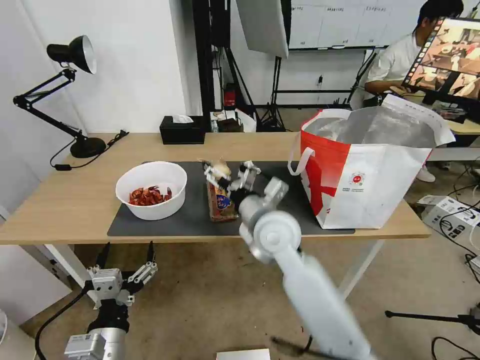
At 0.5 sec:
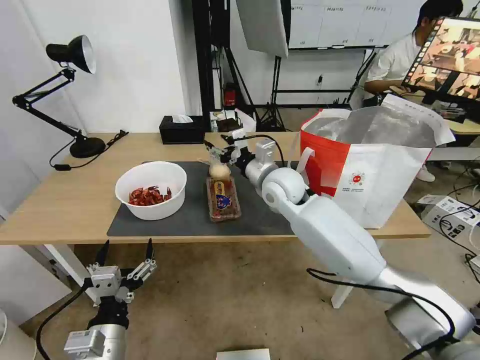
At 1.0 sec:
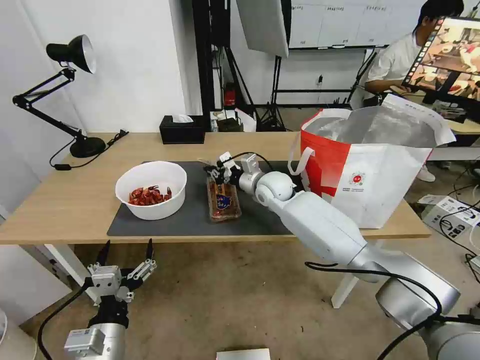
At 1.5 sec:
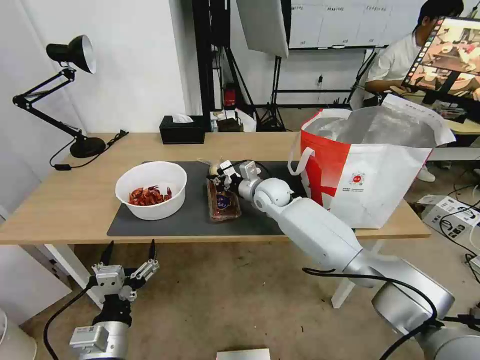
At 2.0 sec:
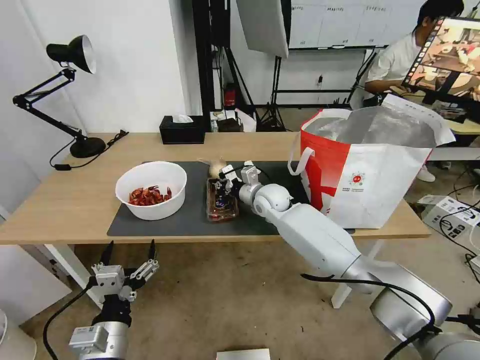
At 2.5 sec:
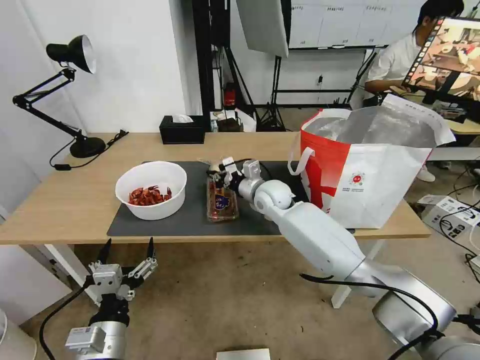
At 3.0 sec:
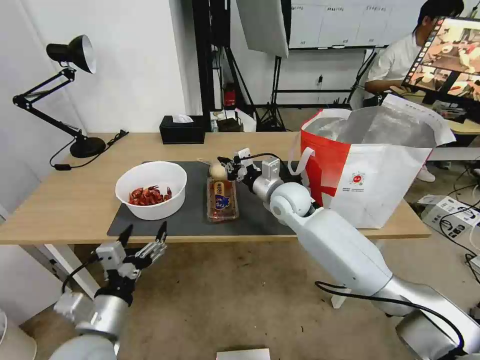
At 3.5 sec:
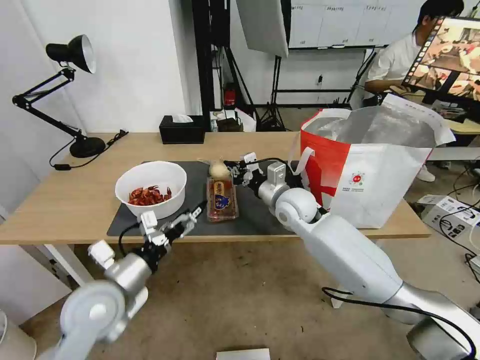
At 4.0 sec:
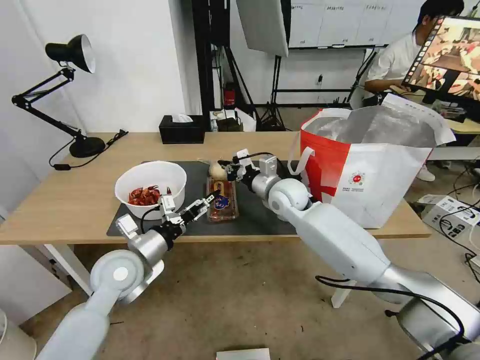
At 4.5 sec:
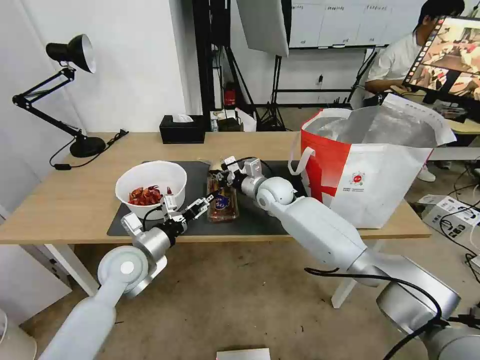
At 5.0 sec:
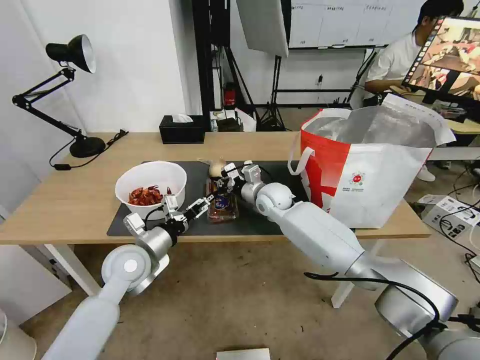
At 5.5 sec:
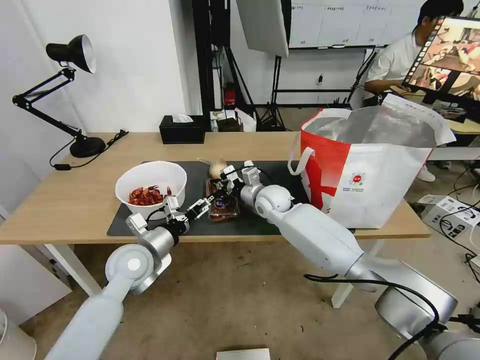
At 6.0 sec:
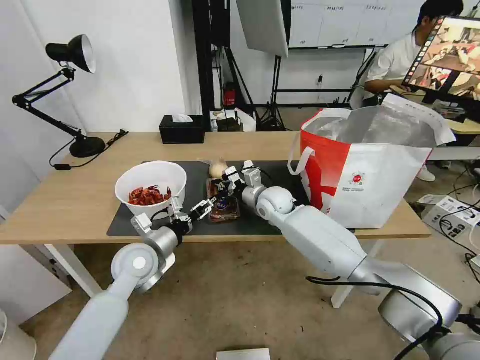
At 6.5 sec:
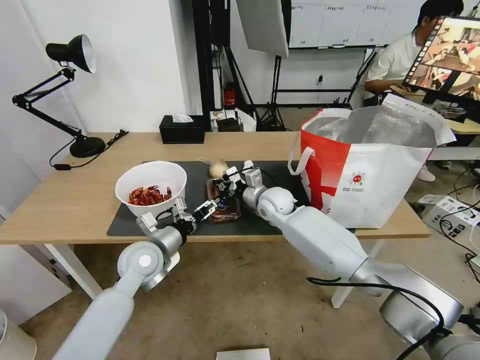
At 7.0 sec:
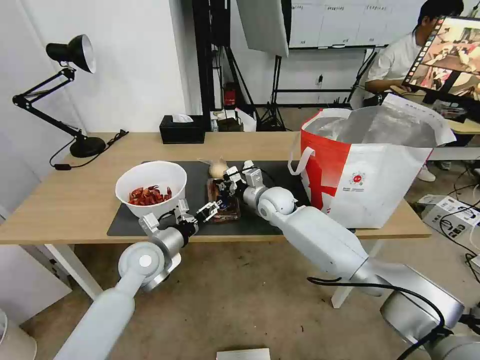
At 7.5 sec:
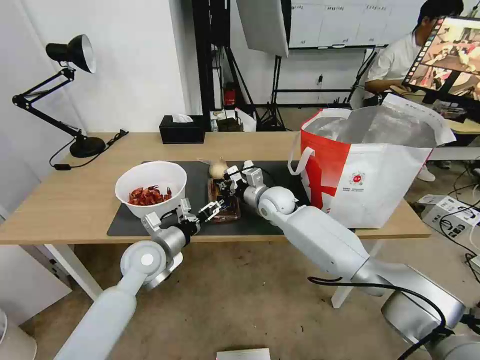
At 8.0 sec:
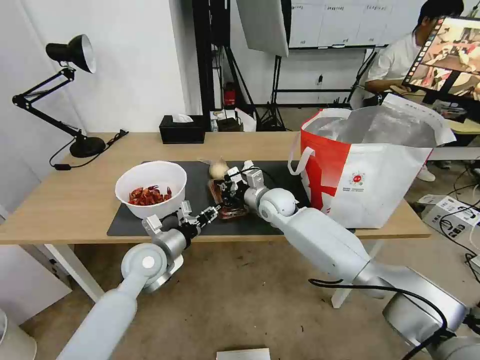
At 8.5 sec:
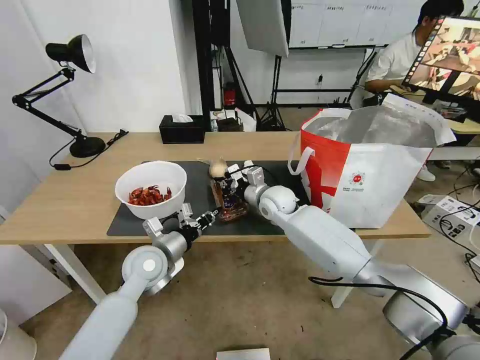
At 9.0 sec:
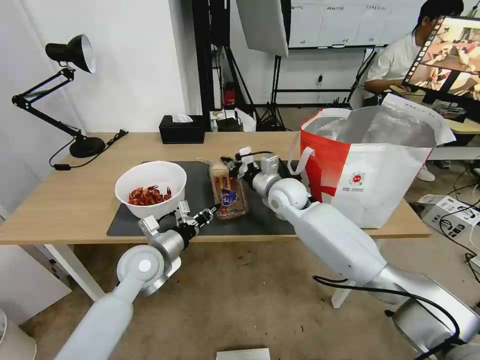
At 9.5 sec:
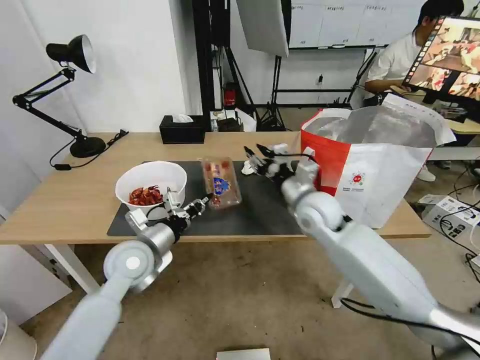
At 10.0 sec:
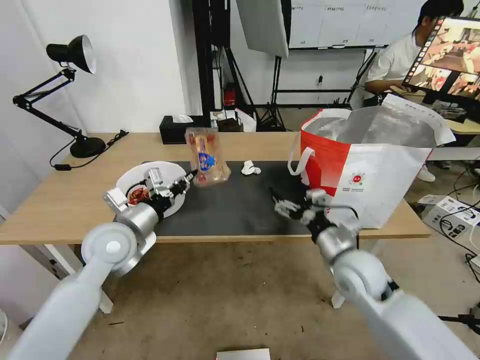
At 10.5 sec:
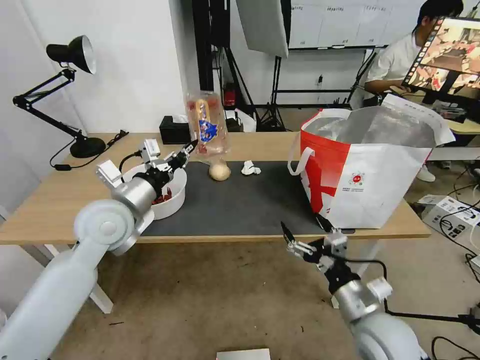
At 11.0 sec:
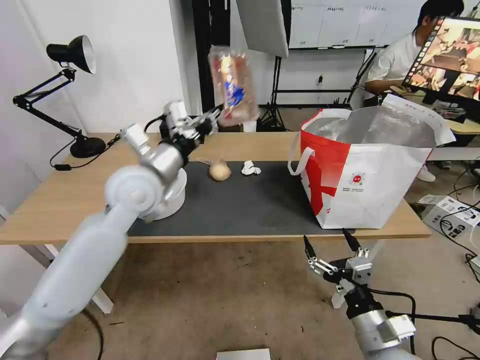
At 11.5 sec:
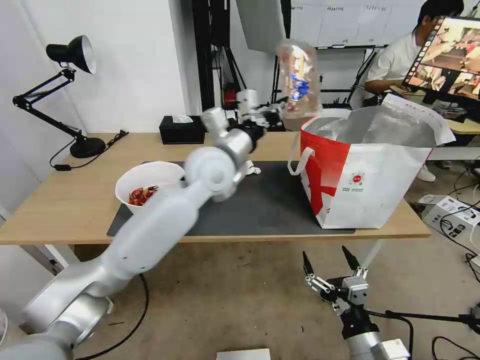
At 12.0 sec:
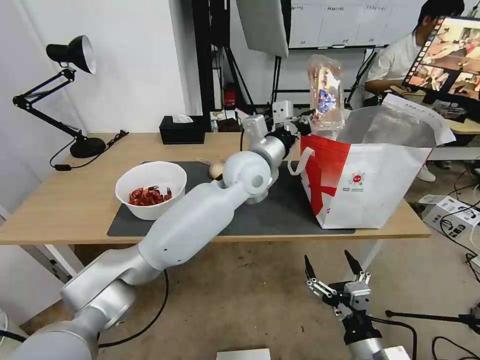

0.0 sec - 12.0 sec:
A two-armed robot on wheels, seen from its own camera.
Task of the whole recording: Pick up the trash from the table and place it into the takeout bag.
0.0 sec - 2.0 sec: The right gripper travels forward and downward by some 20 cm, and closes.
2.0 sec - 4.0 sec: The left gripper goes approximately 20 cm forward; the right gripper moves upward, approximately 5 cm.
4.0 sec - 6.0 sec: The right gripper shifts some 5 cm downward.
6.0 sec - 8.0 sec: The left gripper closes.
8.0 sec - 10.0 sec: The right gripper shifts roughly 25 cm backward and to the right, and opens its fingers. The left gripper goes about 10 cm upward.
10.0 sec - 12.0 sec: The right gripper goes about 20 cm backward. The left gripper moves to the right and forward, approximately 30 cm.

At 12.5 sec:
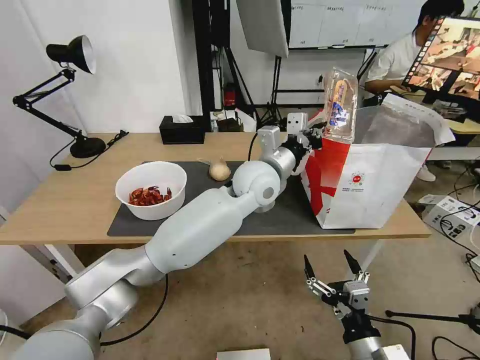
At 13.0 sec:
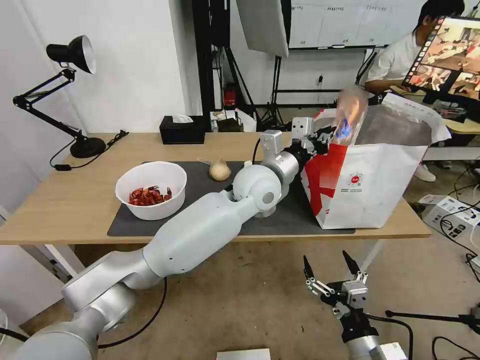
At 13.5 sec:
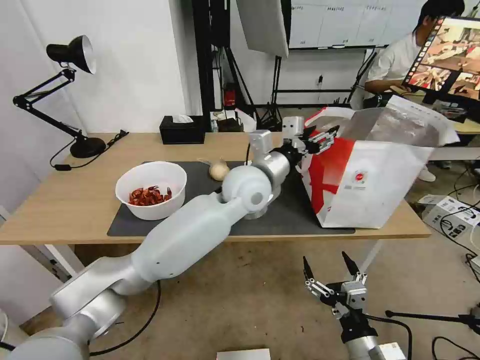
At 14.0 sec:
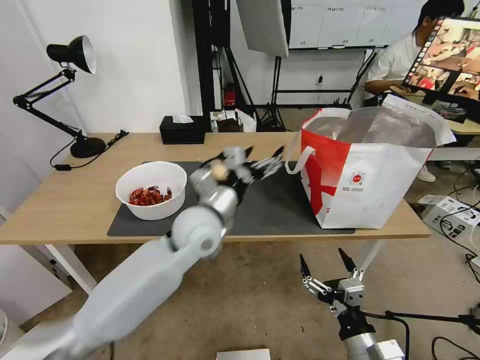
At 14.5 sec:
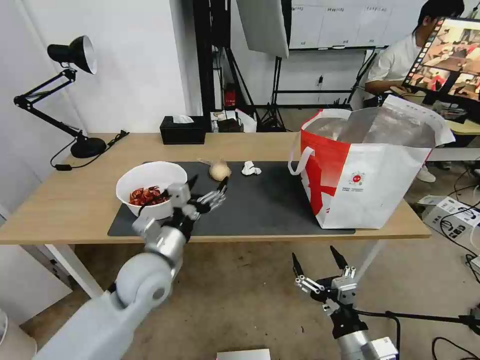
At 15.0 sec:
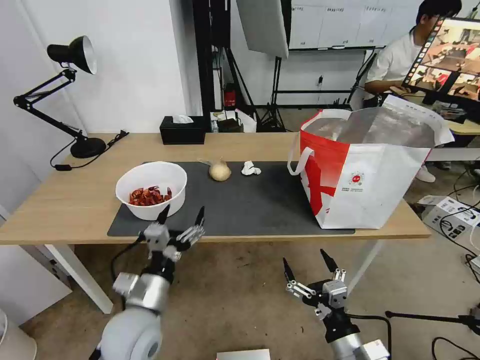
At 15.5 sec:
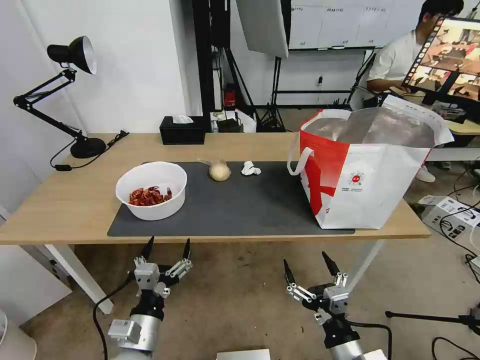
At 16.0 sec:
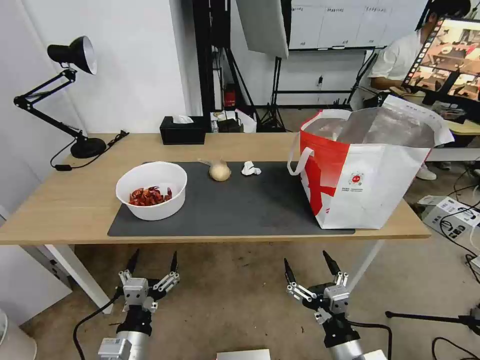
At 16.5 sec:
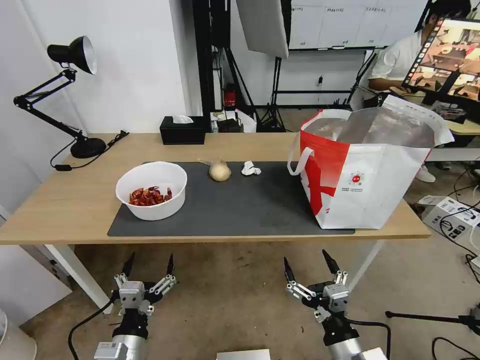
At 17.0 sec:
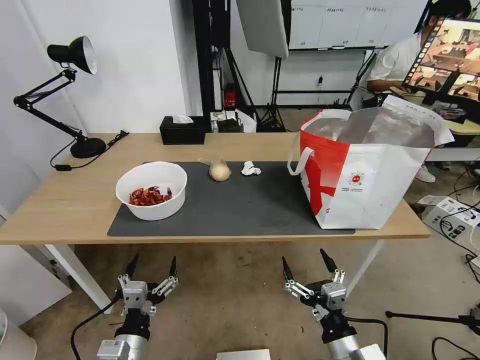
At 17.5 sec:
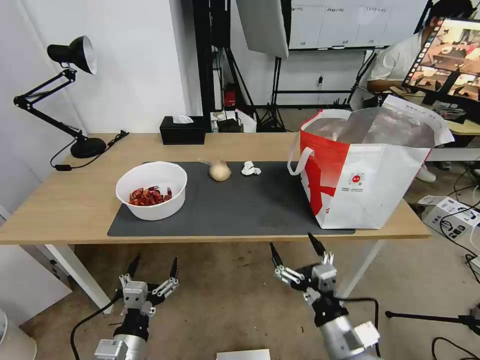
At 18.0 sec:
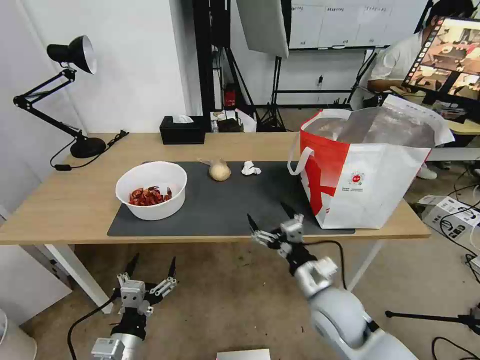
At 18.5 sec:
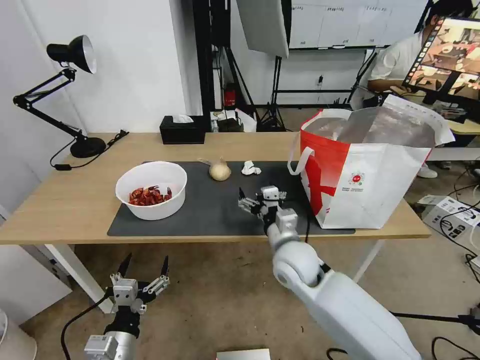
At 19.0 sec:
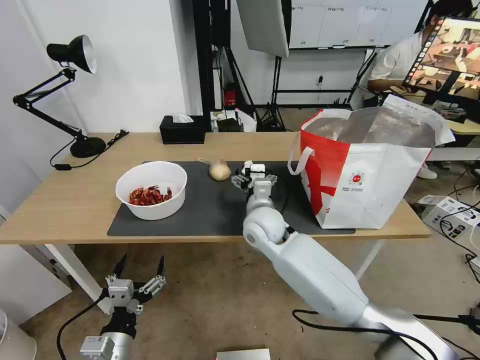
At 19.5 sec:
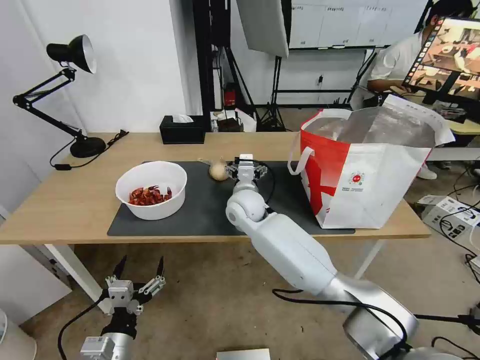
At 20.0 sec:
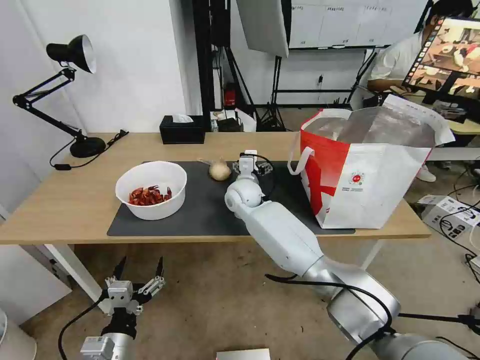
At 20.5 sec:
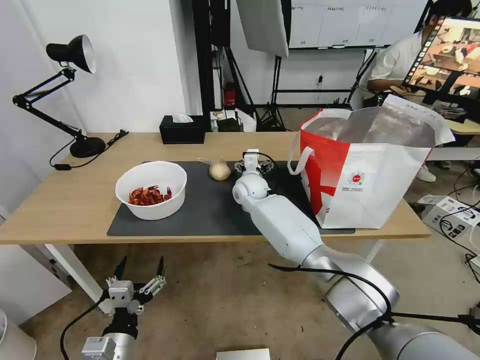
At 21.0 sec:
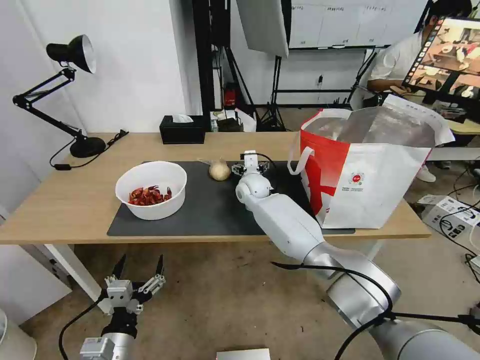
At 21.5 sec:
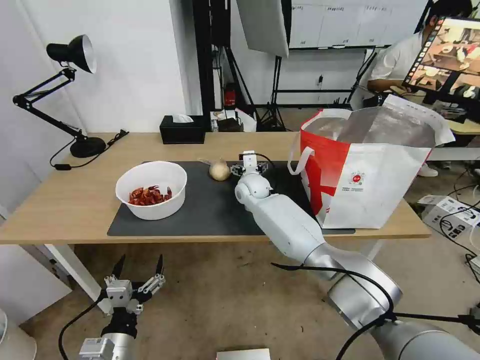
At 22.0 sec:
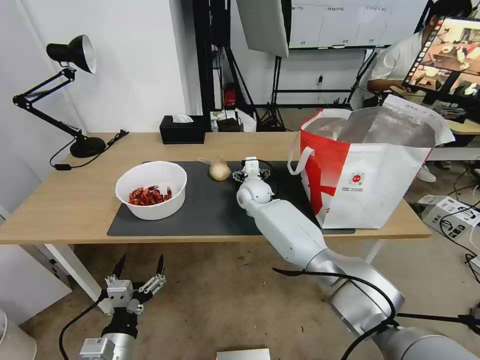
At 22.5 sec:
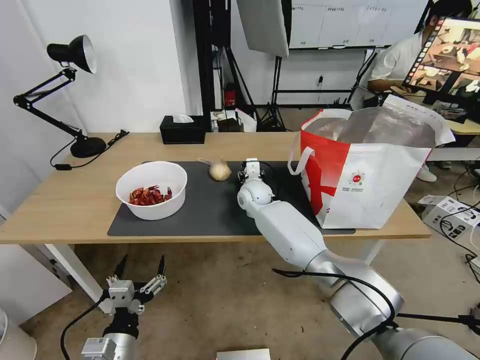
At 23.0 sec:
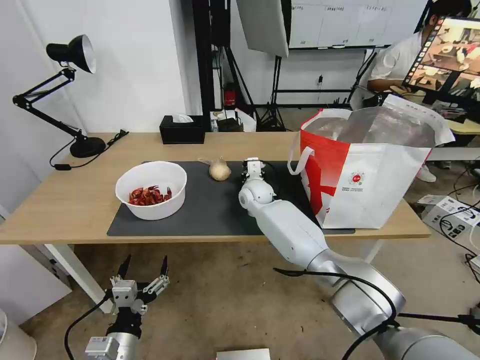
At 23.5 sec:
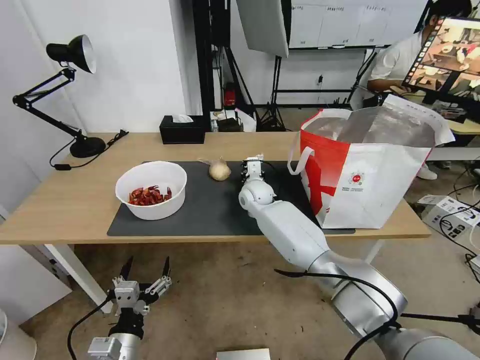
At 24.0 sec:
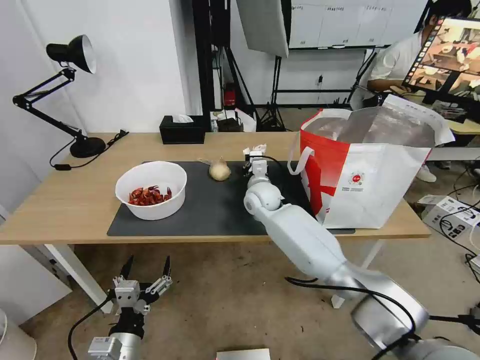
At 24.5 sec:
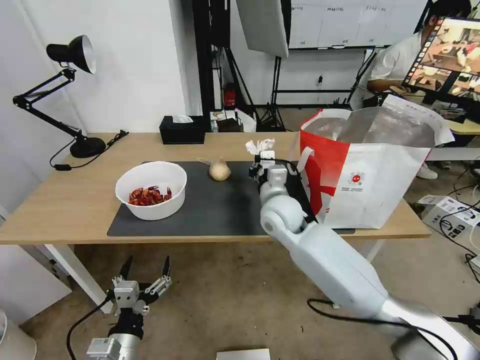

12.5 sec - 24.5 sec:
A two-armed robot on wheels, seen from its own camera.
Task of the whole recording: Pick up the trash from the table and place it into the takeout bag.
12.5 sec - 14.5 sec: The left gripper heads to the left, backward and downward, covering about 30 cm, and opens up.
14.5 sec - 16.5 sec: The left gripper moves backward and downward, about 20 cm.
16.5 sec - 18.5 sec: The right gripper travels forward and to the left by approximately 25 cm.
18.5 sec - 20.5 sec: The right gripper shifts some 25 cm forward.
20.5 sec - 22.5 sec: The right gripper closes its fingers.
22.5 sec - 24.5 sec: The right gripper heads backward and upward, covering approximately 15 cm, and closes its fingers.

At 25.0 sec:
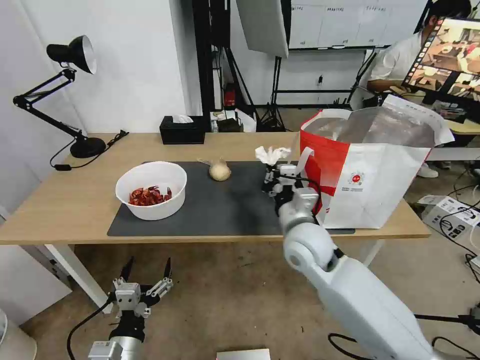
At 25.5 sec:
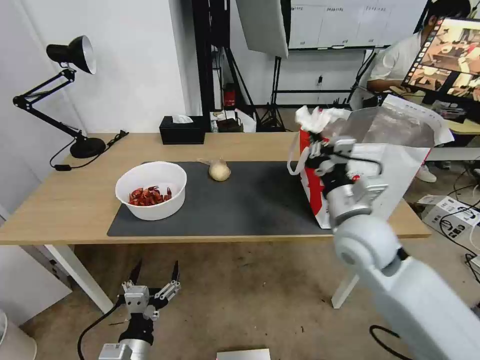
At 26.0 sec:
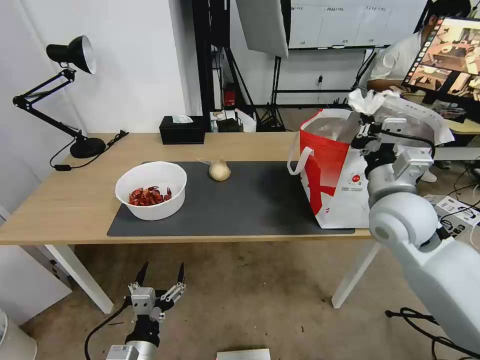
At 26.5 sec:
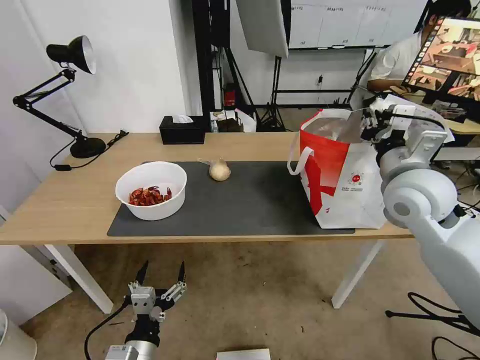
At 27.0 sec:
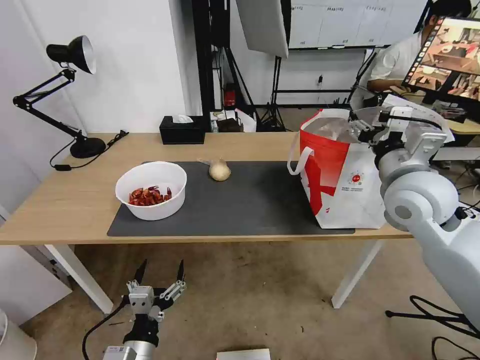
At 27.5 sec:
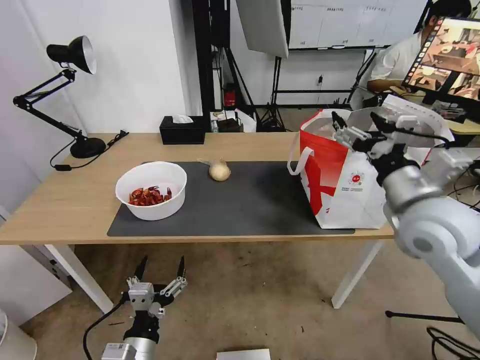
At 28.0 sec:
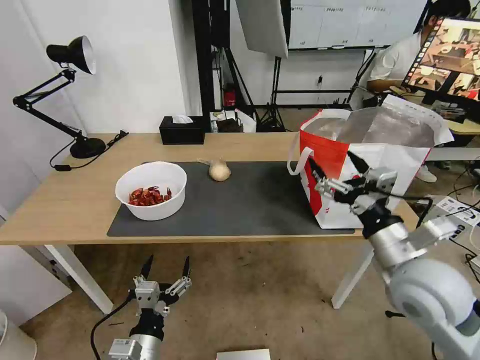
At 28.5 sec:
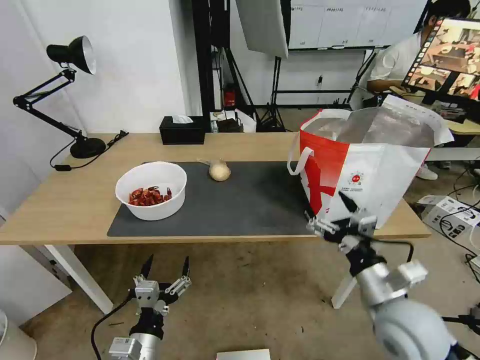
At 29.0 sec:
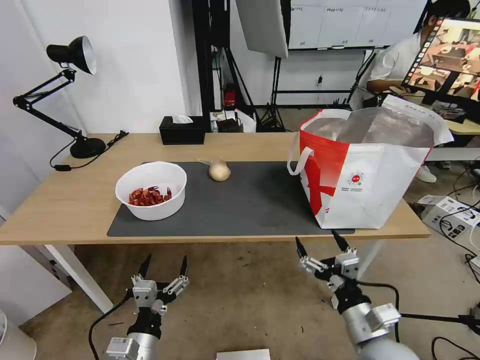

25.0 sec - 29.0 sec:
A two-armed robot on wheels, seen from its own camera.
Task of the whole recording: Pick up the trash from the table and place it into the takeout bag.
25.0 sec - 27.0 sec: The right gripper shifts some 20 cm to the right and upward, and opens up.
27.0 sec - 29.0 sec: The right gripper shifts approximately 30 cm downward and backward.
